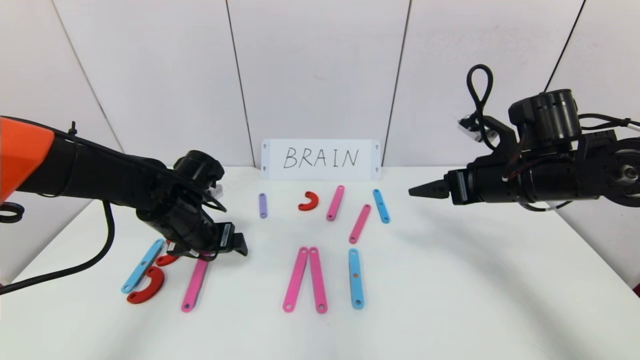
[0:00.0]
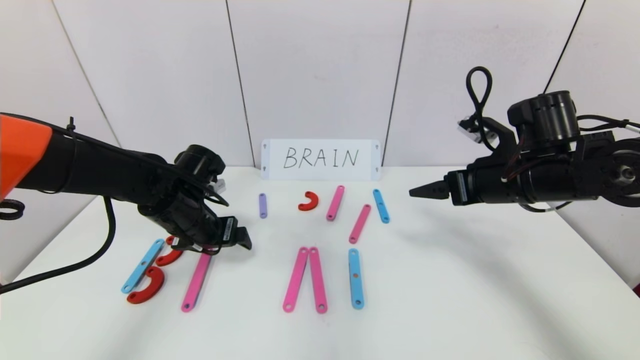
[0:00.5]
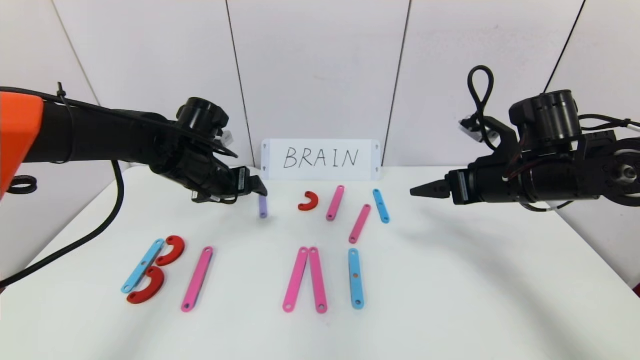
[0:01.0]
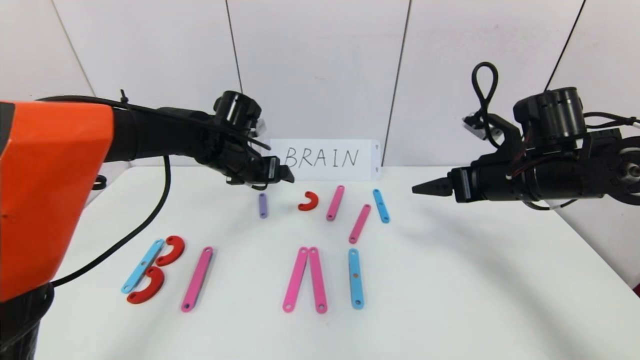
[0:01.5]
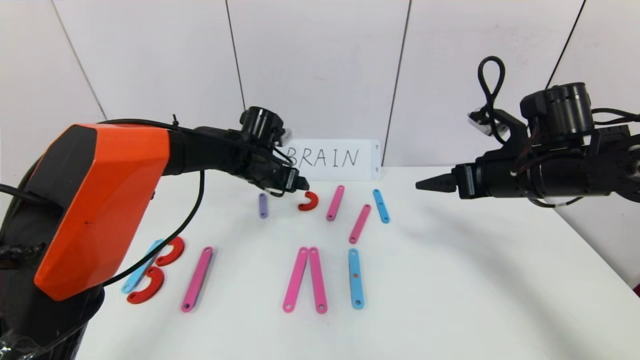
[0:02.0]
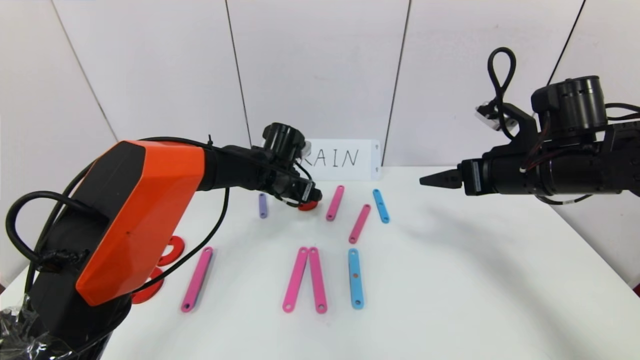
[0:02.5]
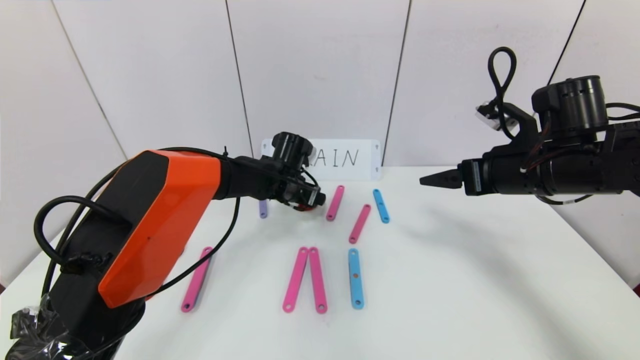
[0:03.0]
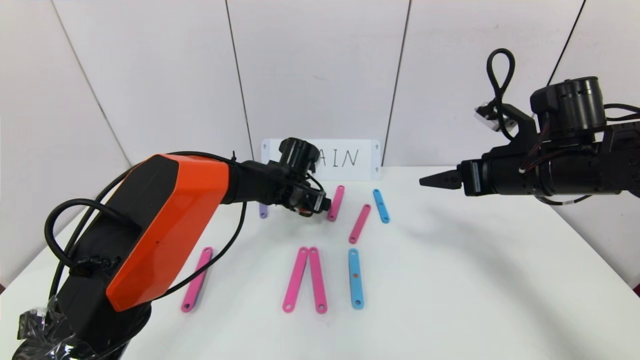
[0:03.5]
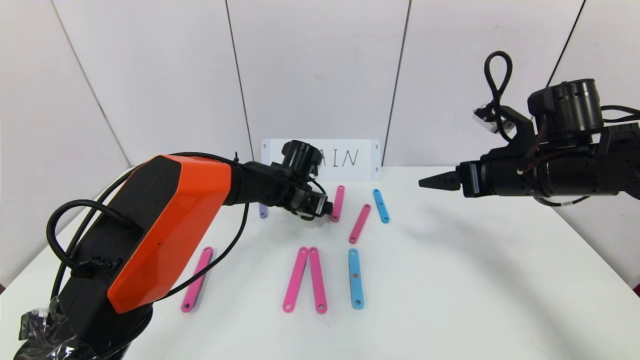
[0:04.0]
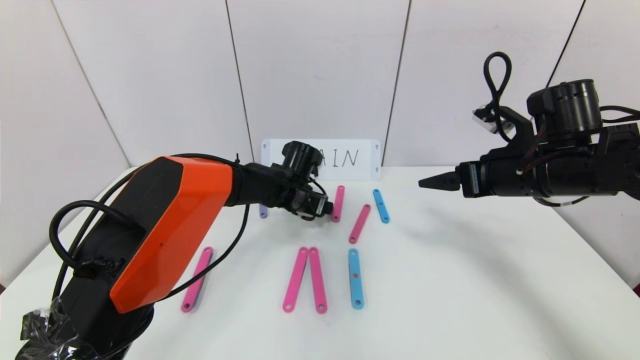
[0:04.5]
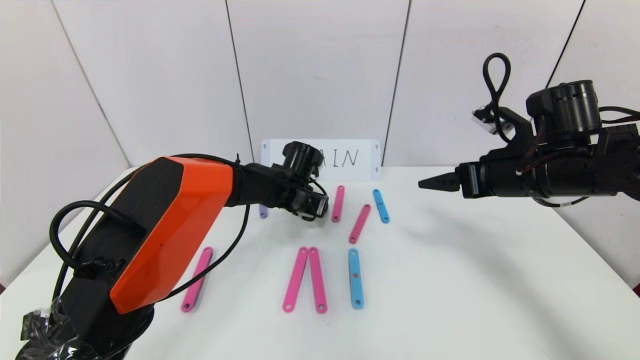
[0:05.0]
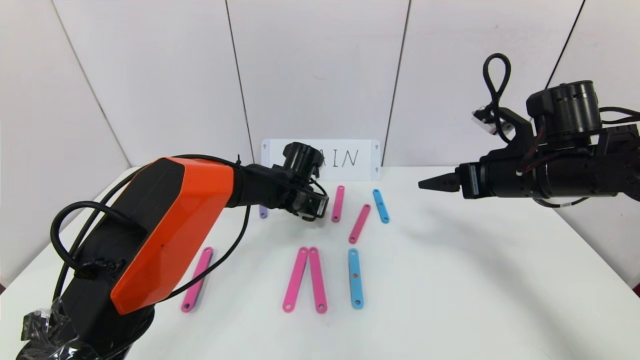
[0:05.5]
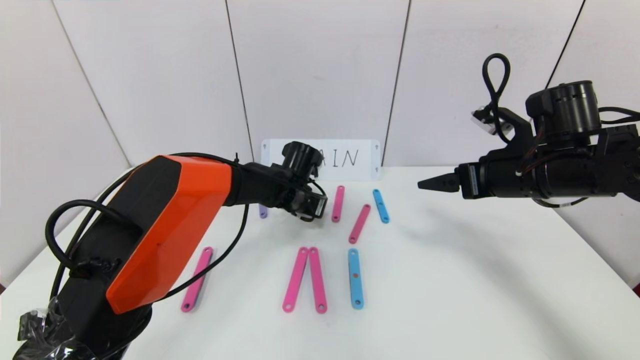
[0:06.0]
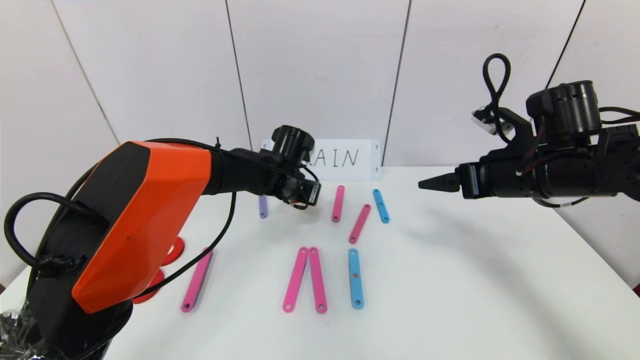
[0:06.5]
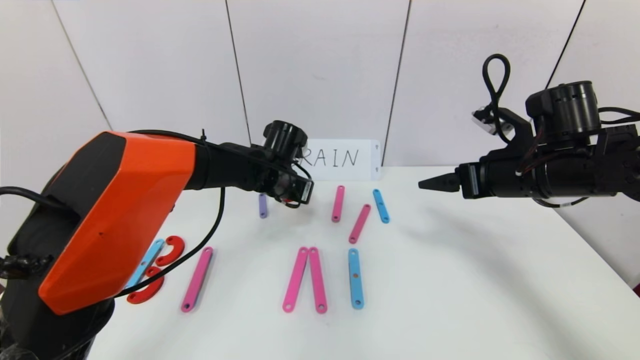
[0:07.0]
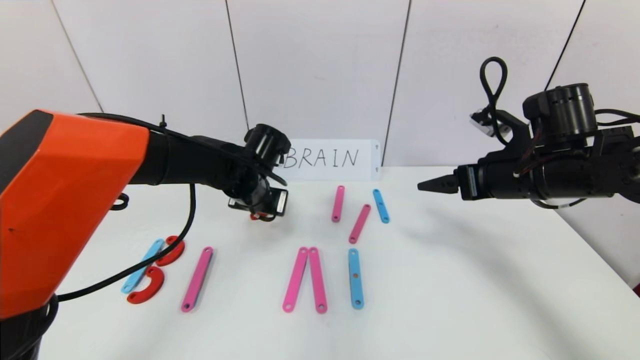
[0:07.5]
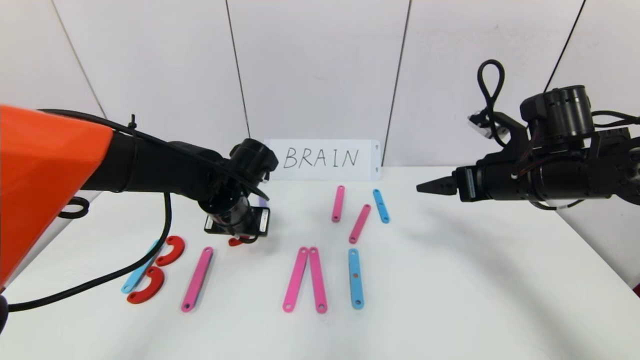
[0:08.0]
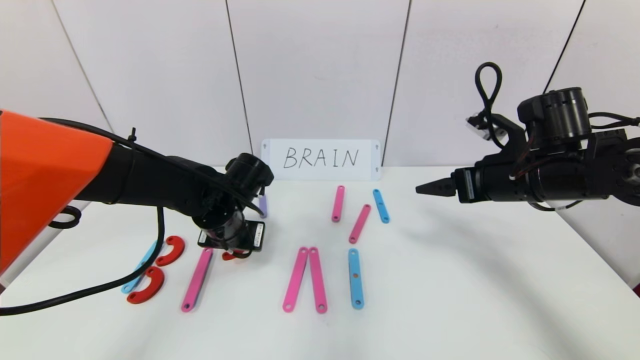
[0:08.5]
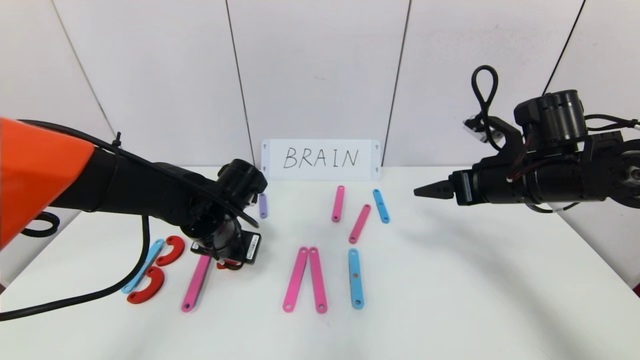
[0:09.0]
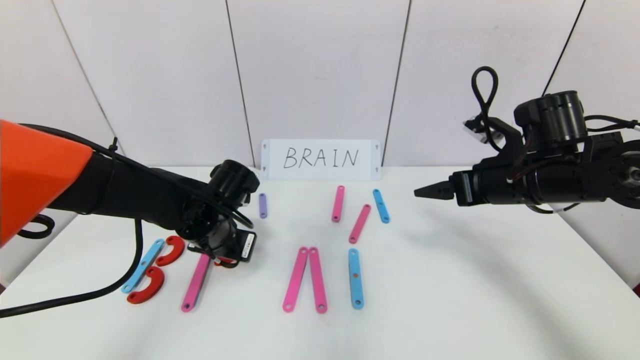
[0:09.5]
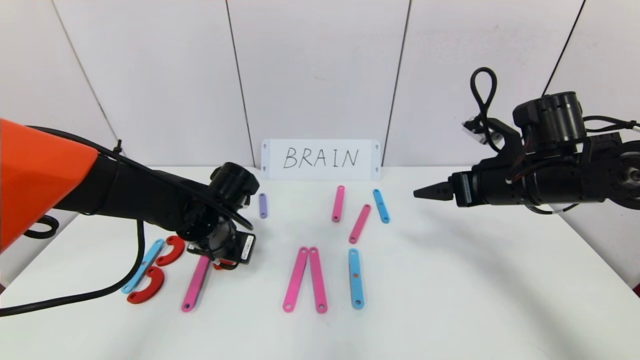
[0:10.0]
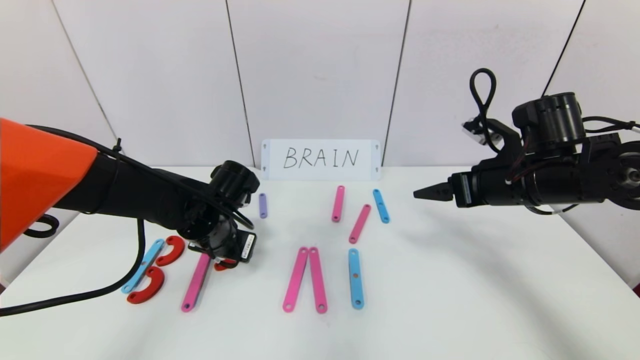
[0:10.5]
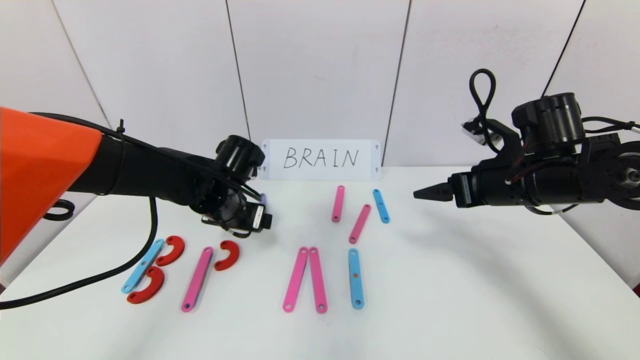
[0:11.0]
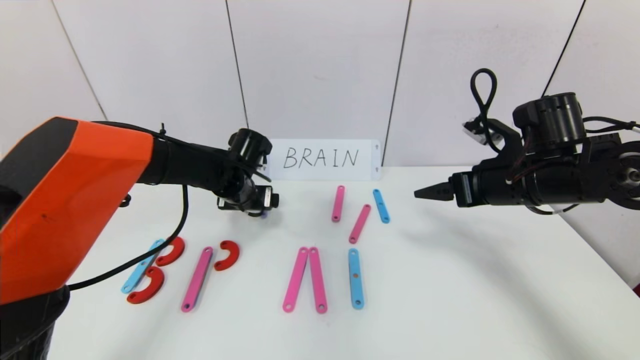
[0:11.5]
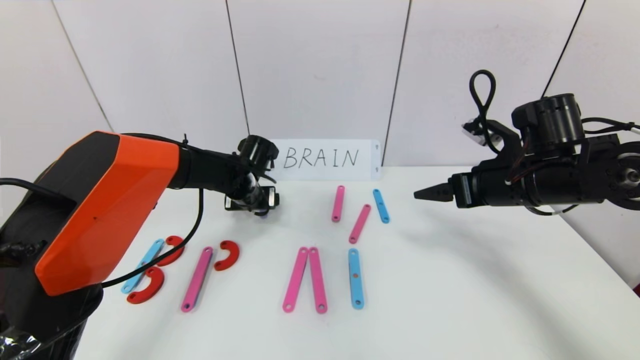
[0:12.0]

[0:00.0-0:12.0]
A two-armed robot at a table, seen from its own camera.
Task of the whole recording: rearrange the word baai as brain.
0:00.0 to 0:02.0: The left gripper is displaced forward and to the right by approximately 15 cm.
0:02.0 to 0:04.0: The left gripper heads to the right and downward, covering some 10 cm.
0:04.0 to 0:06.0: The left gripper closes up.
0:06.0 to 0:08.0: The left gripper is displaced backward and to the left by about 15 cm.
0:08.0 to 0:10.0: The grippers stay close to where they were, moving slightly.
0:10.0 to 0:12.0: The left gripper moves forward, roughly 10 cm, and opens its fingers.

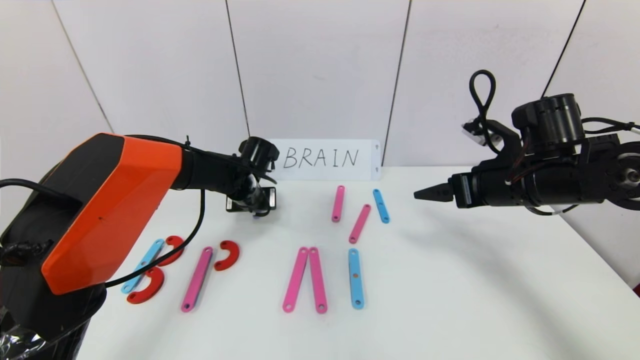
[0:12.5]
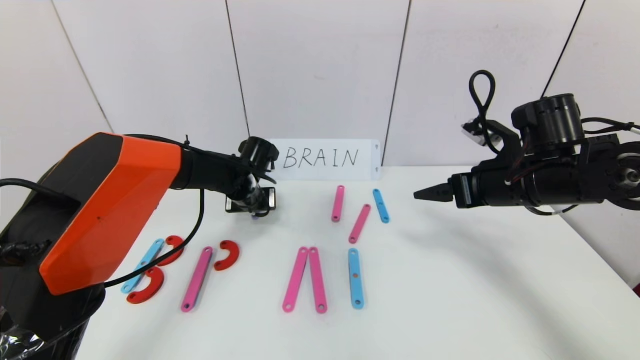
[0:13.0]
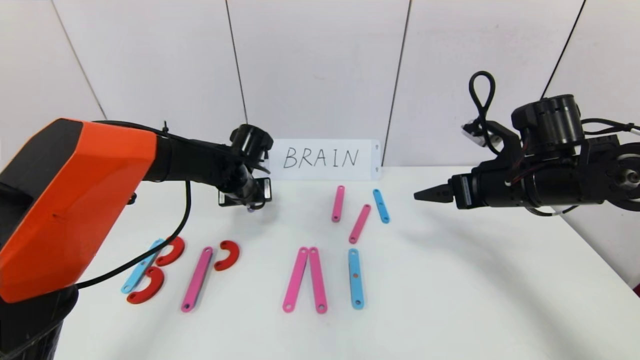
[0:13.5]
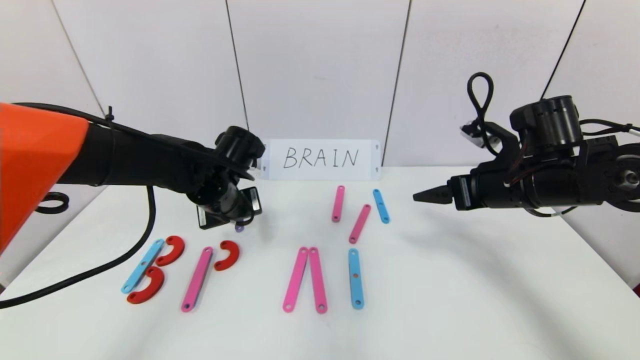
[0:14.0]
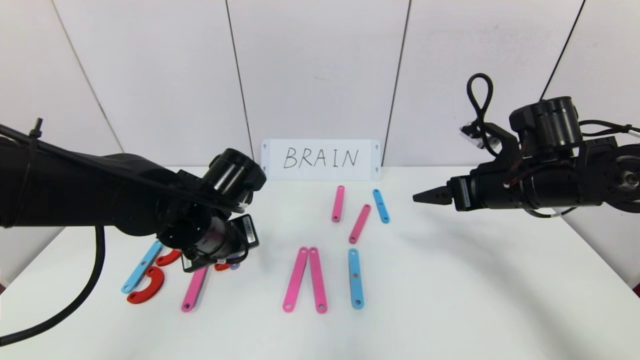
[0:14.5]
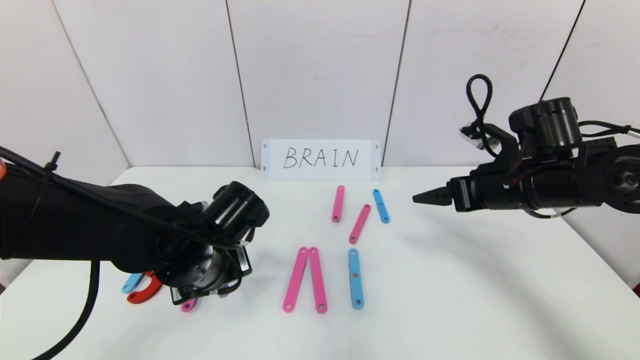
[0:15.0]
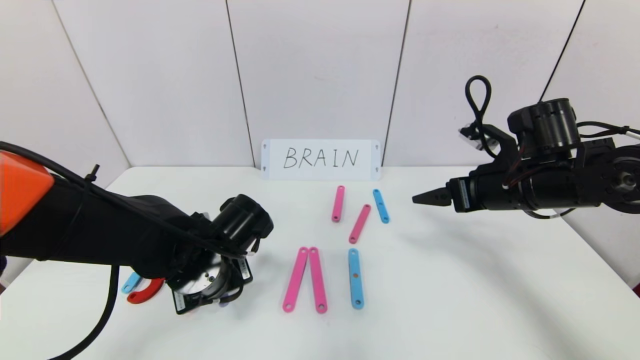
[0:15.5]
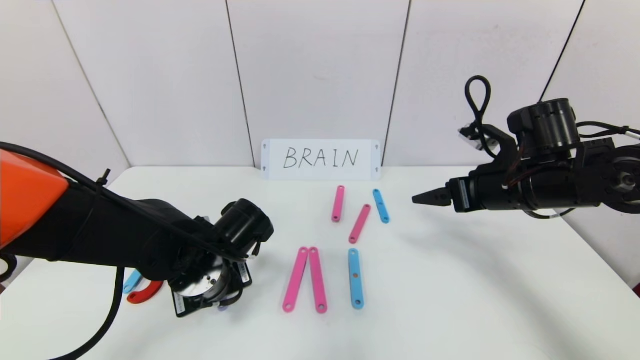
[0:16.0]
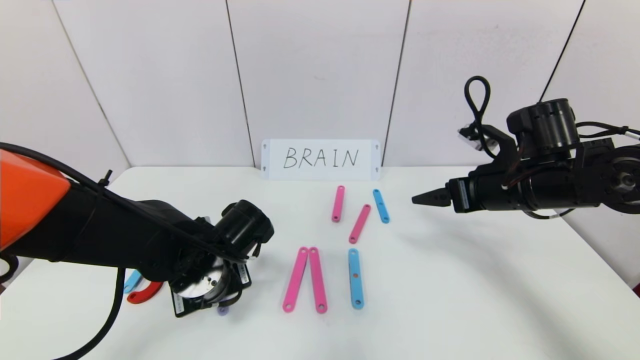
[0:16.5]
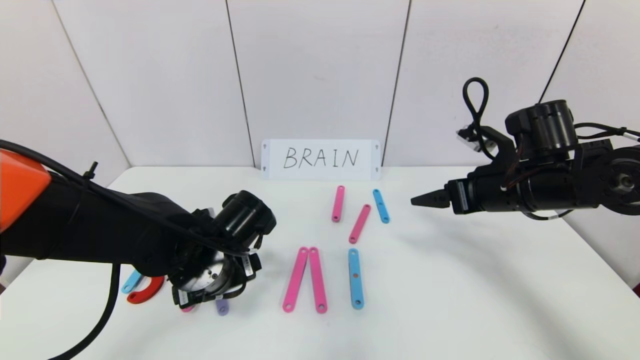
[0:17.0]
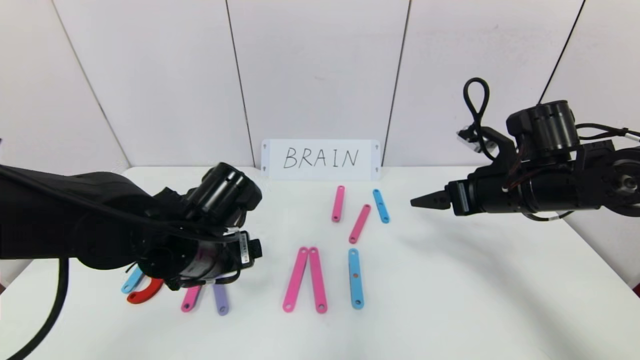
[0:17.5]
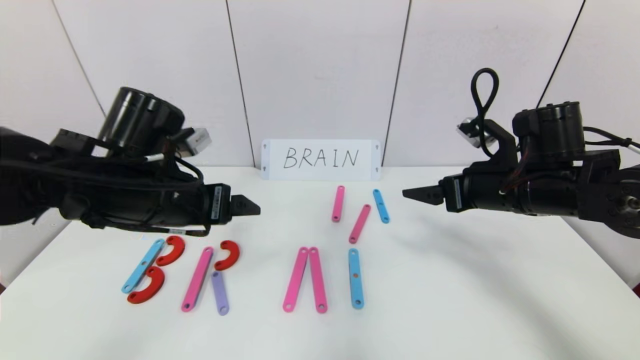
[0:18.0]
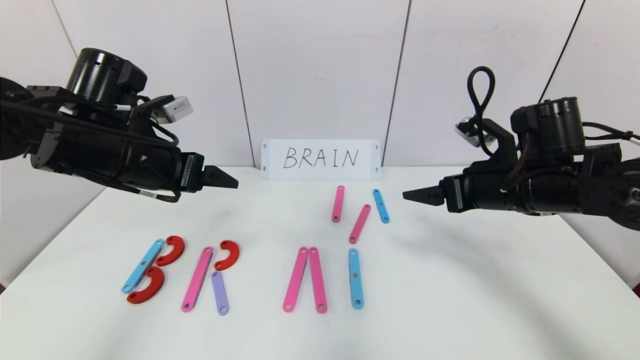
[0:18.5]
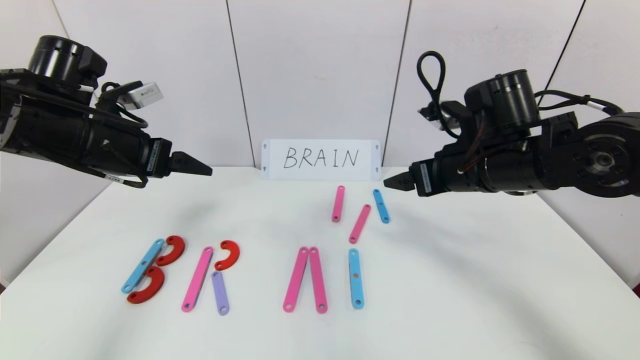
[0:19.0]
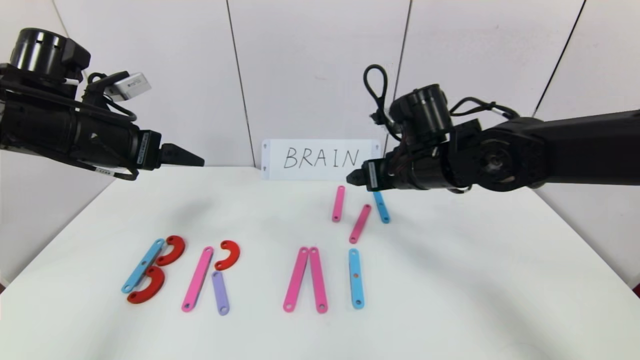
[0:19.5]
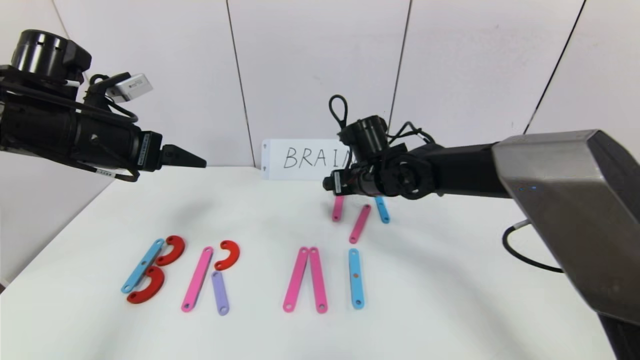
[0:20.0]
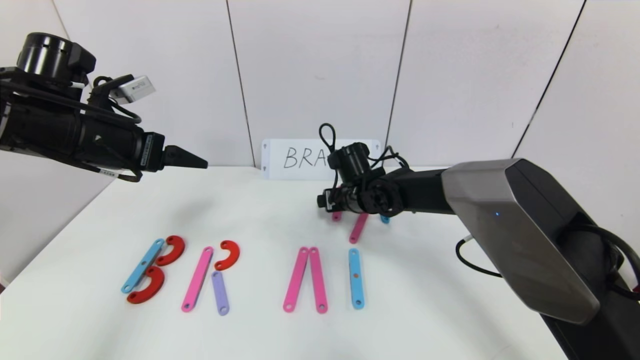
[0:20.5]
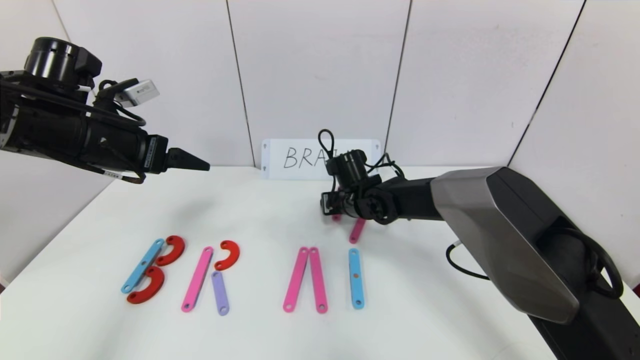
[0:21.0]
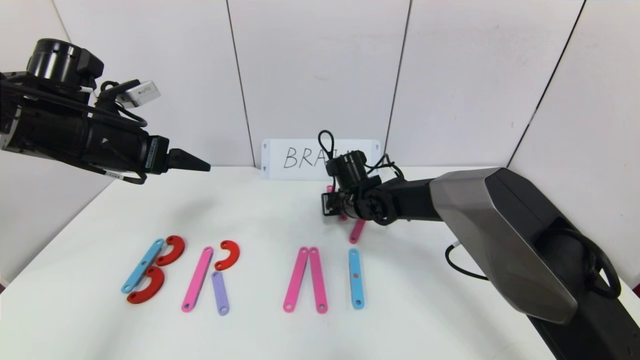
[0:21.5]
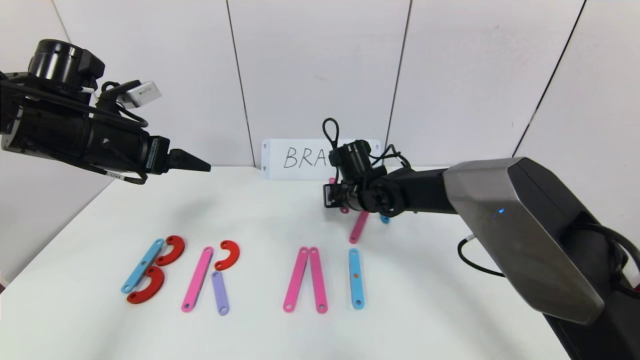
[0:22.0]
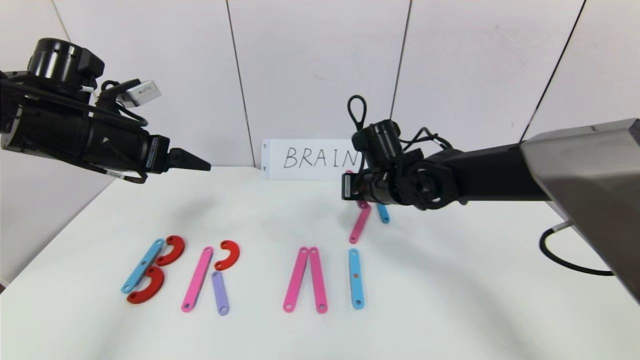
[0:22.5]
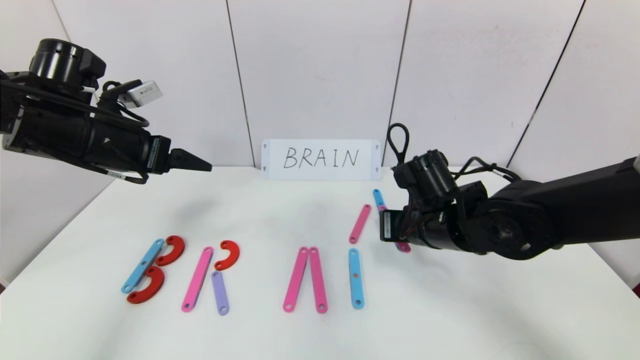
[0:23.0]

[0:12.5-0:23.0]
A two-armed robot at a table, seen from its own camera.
Task of the whole recording: rearrange the word baai as brain.
Step, 0:12.5 to 0:16.5: Place the character R between first character B and third character A.
0:12.5 to 0:14.5: The left gripper goes about 15 cm backward.
0:14.5 to 0:16.5: The left gripper is displaced downward by roughly 5 cm, and opens.
0:16.5 to 0:19.0: The right gripper shifts approximately 5 cm to the left; the left gripper is displaced upward and to the left by approximately 20 cm, and opens up.
0:19.0 to 0:21.0: The right gripper shifts about 25 cm downward, to the left and forward, and closes up.
0:21.0 to 0:23.0: The right gripper is displaced backward, to the right and upward by roughly 15 cm, and closes its fingers.
